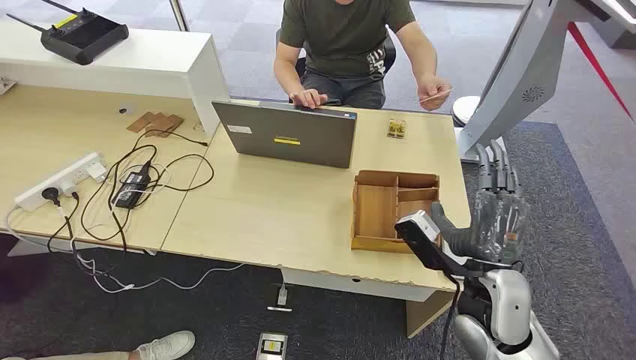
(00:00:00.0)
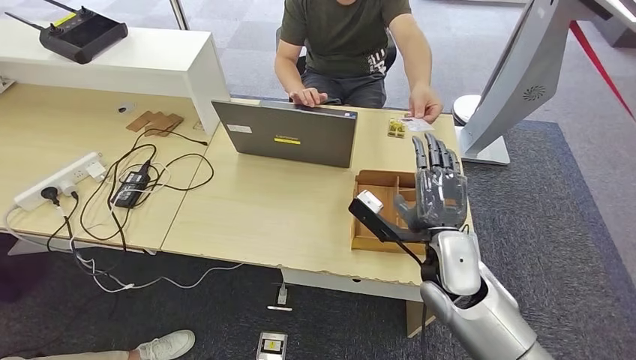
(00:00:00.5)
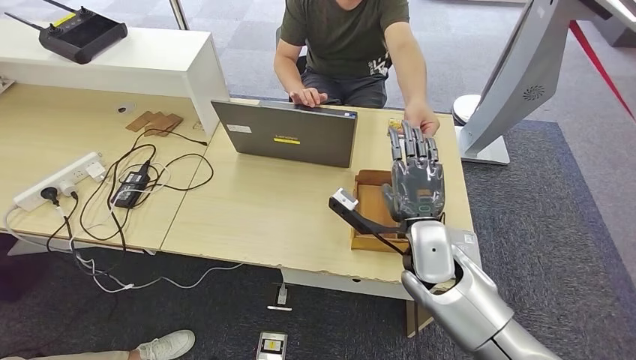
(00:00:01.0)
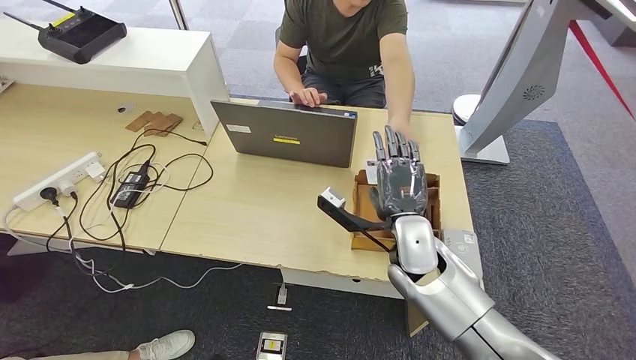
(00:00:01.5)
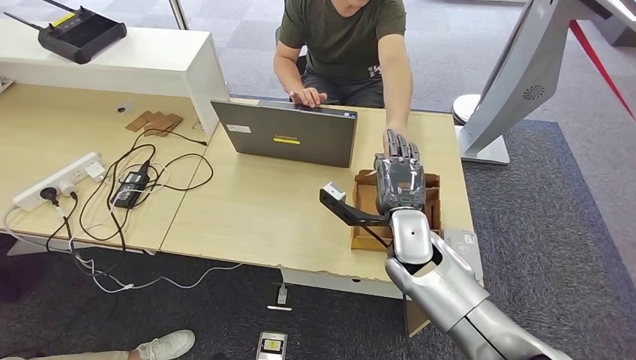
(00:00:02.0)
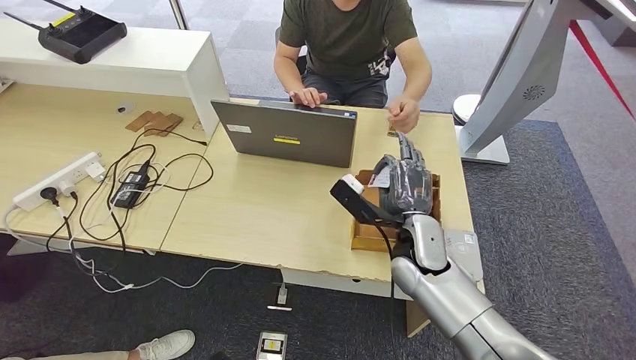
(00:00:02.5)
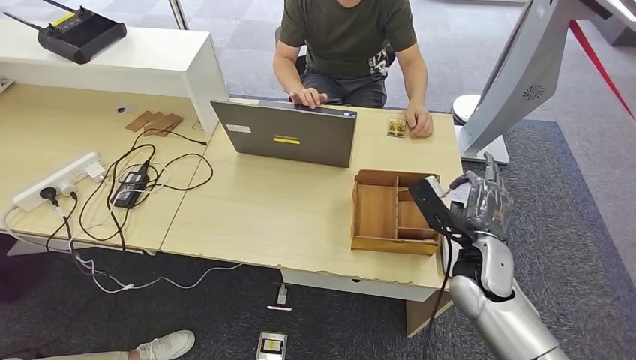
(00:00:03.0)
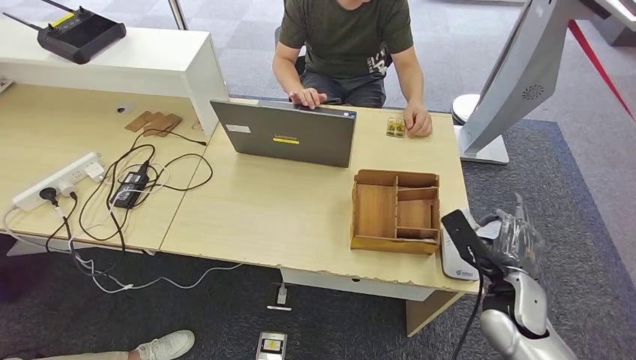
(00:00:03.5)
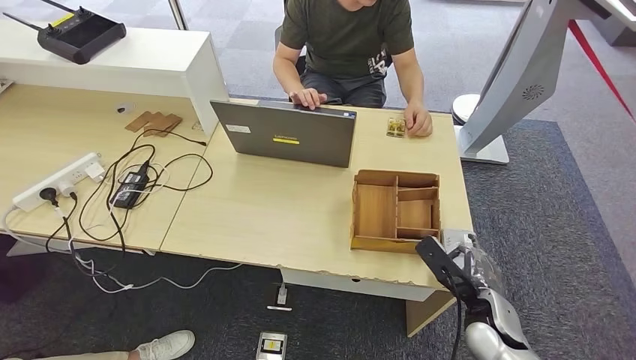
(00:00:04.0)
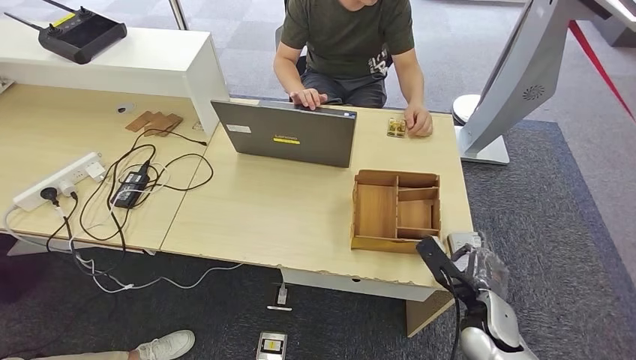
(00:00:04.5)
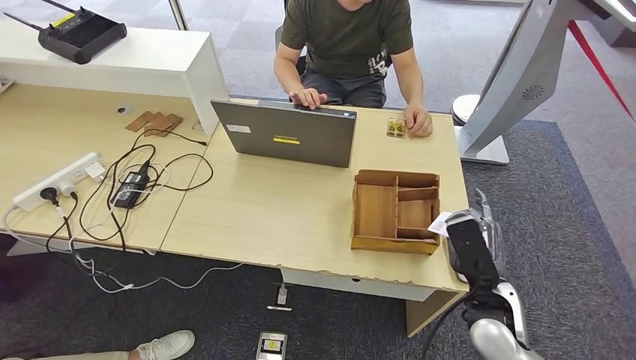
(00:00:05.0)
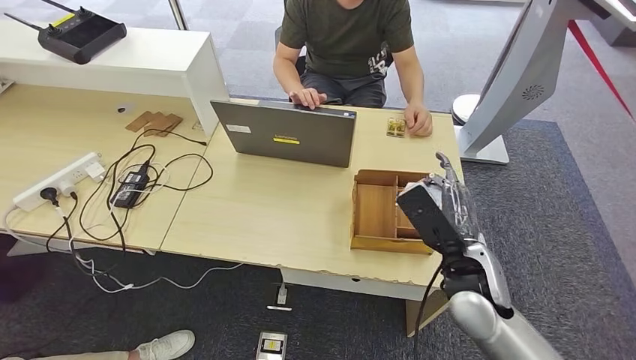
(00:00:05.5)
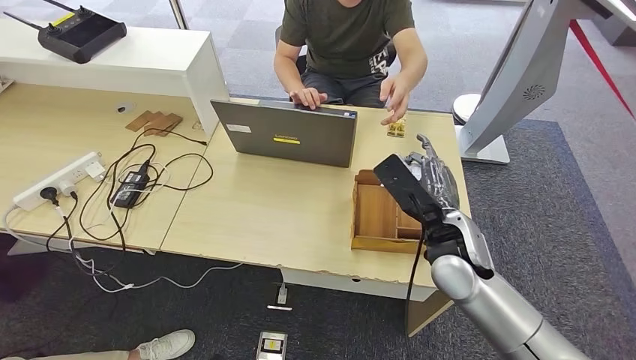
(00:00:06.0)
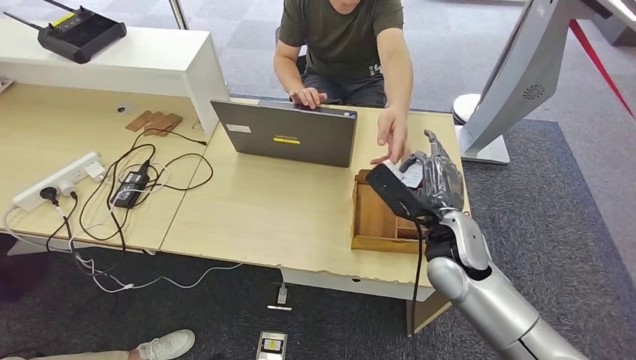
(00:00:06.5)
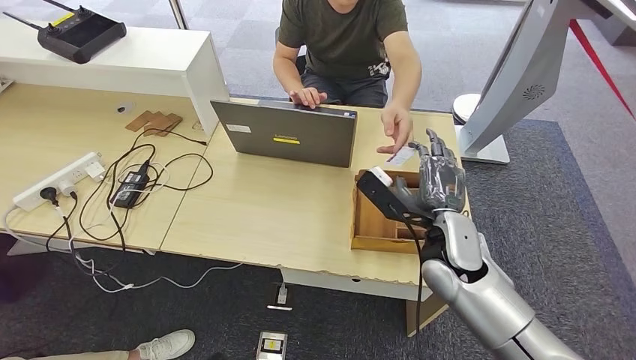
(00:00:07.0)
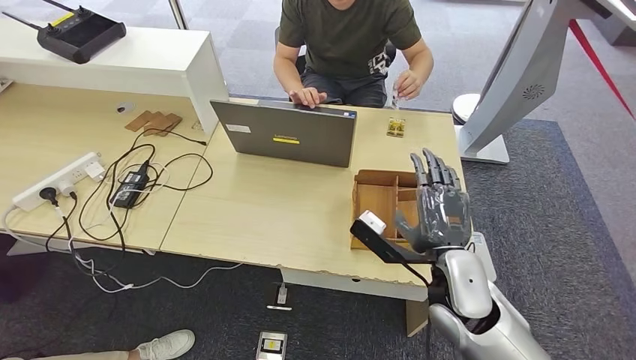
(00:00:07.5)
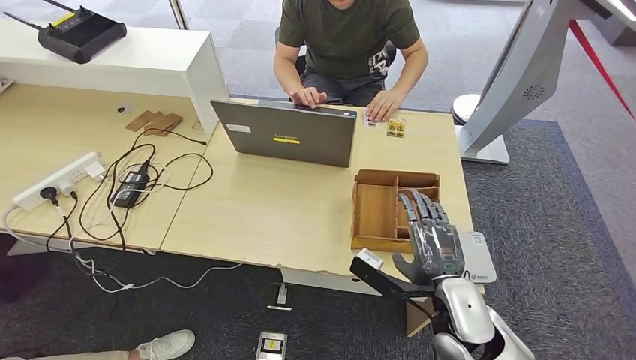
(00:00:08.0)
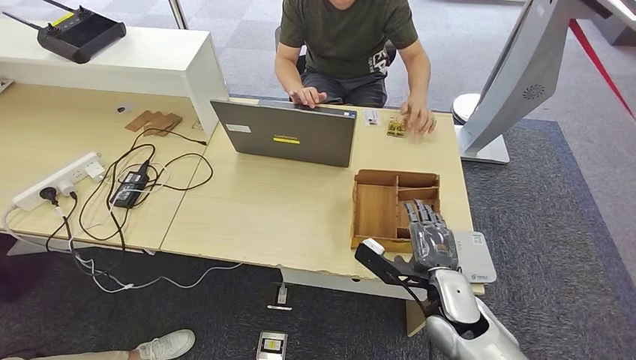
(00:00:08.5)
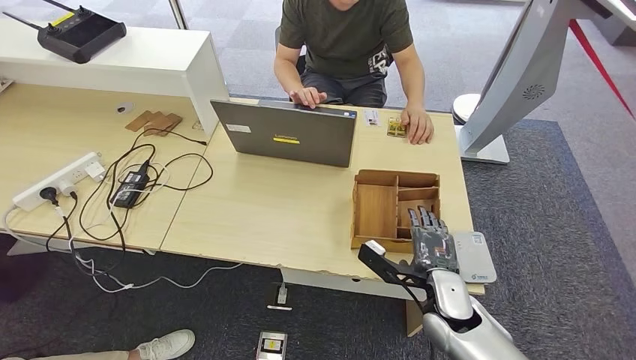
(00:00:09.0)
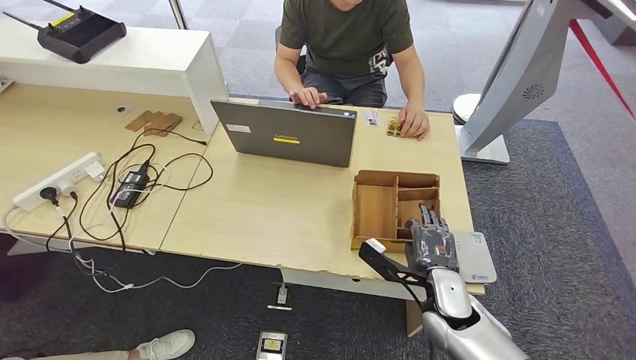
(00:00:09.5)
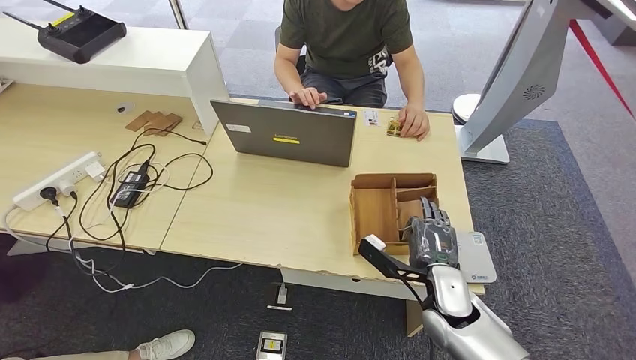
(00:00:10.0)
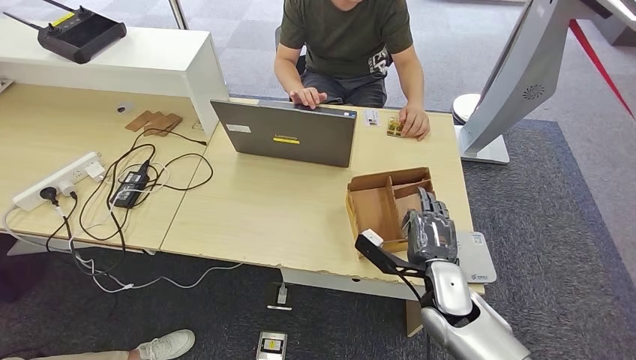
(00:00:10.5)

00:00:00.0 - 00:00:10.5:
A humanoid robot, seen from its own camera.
Step, 00:00:00.0 - 00:00:03.0: Take the ID card from the person's hand.
Step, 00:00:03.5 - 00:00:06.0: Place the ID card on the card reader.
Step, 00:00:06.5 - 00:00:07.5: Hand the ID card to the person.
00:00:02.0 - 00:00:04.0: The right hand shifts about 20 cm to the right, downward and backward; the left hand moves roughly 5 cm.
00:00:04.0 - 00:00:06.5: The left hand shifts by about 5 cm; the right hand goes roughly 15 cm upward, to the left and forward.
00:00:06.5 - 00:00:08.5: The right hand travels downward and backward by about 10 cm.
00:00:08.5 - 00:00:10.5: There are only small adjustments of the hands.

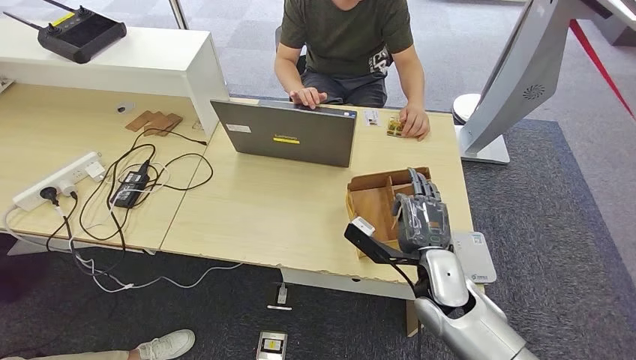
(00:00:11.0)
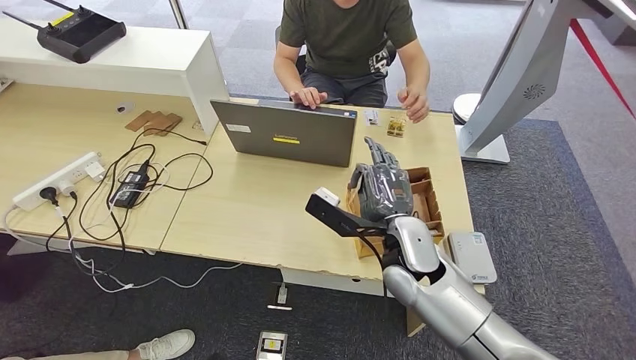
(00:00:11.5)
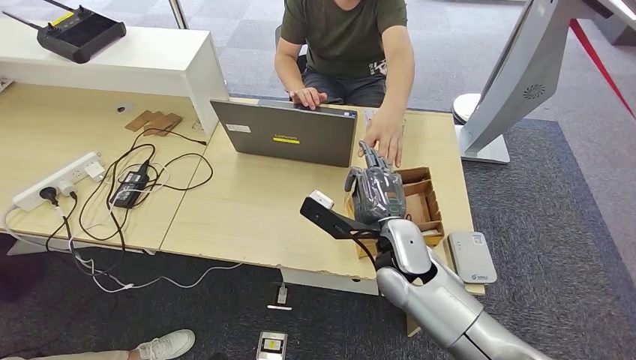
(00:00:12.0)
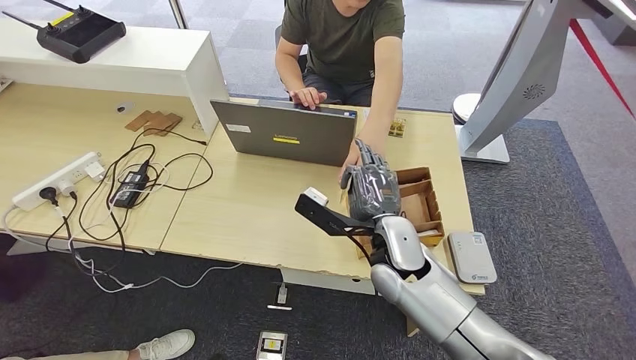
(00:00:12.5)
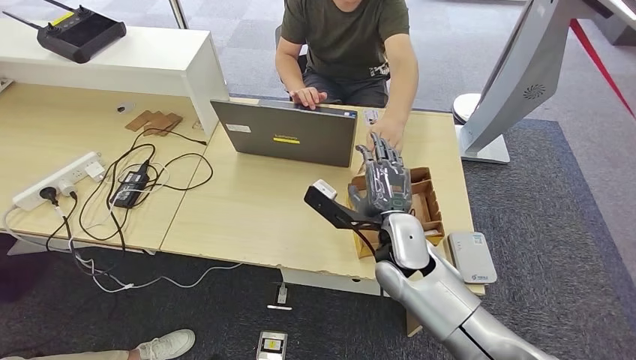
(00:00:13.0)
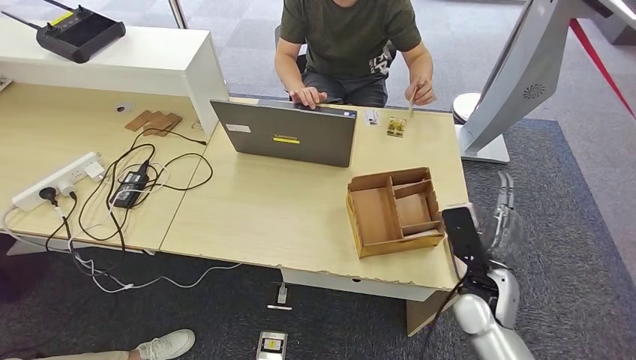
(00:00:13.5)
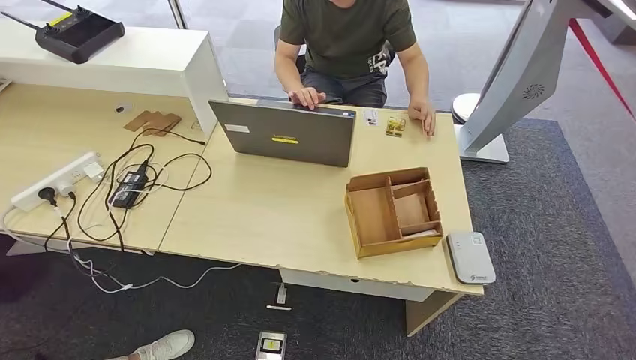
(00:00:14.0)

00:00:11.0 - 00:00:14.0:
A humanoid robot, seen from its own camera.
Step, 00:00:12.0 - 00:00:13.5: Hand the room key to the person.
00:00:11.0 - 00:00:12.5: The right hand goes about 5 cm to the left.
00:00:12.5 - 00:00:14.0: The left hand moves backward, about 10 cm; the right hand shifts about 40 cm to the right, downward and backward.
